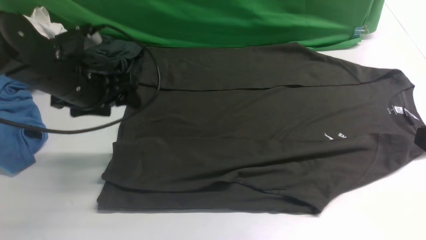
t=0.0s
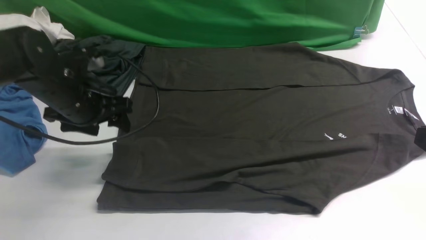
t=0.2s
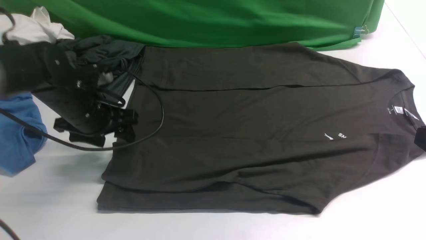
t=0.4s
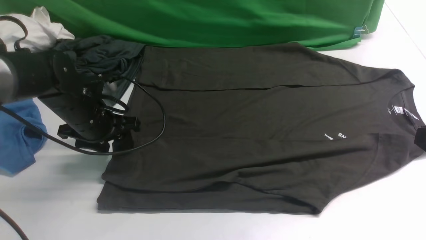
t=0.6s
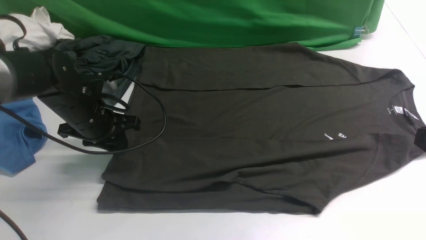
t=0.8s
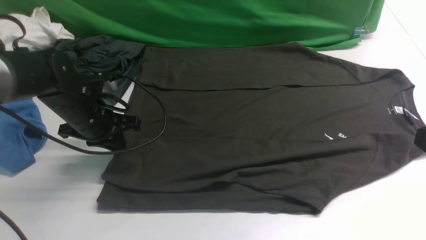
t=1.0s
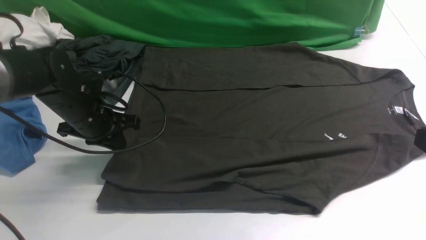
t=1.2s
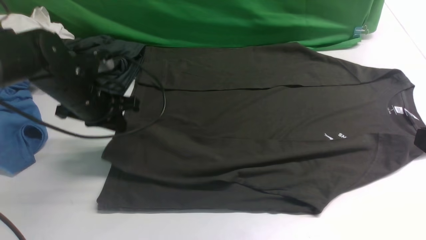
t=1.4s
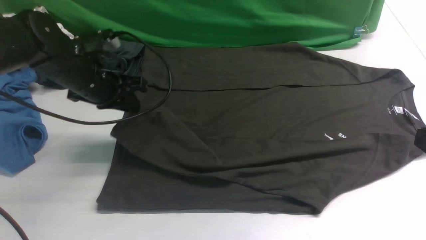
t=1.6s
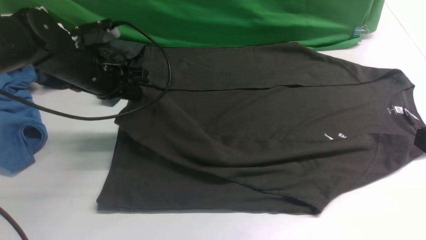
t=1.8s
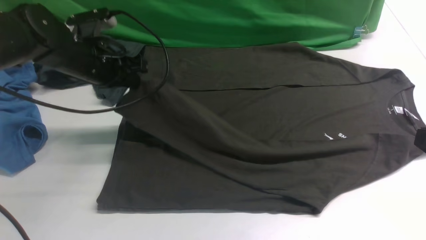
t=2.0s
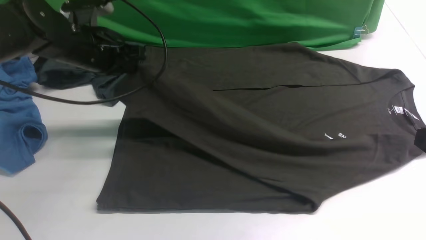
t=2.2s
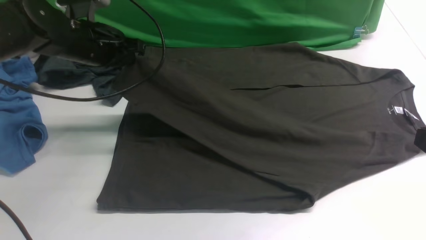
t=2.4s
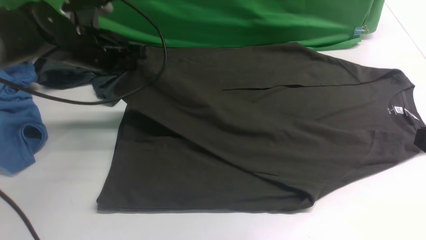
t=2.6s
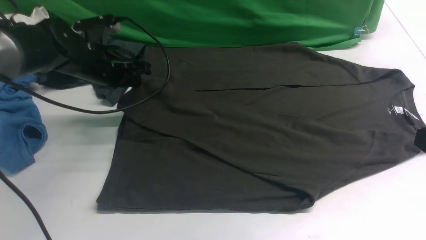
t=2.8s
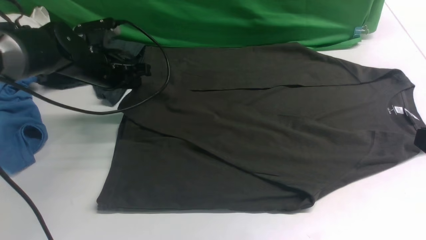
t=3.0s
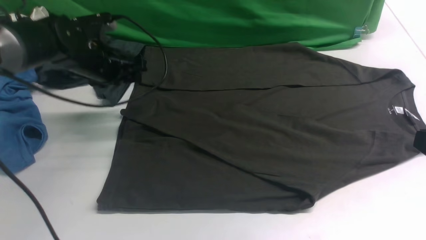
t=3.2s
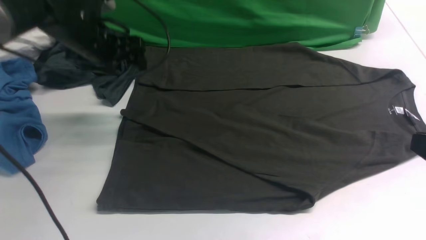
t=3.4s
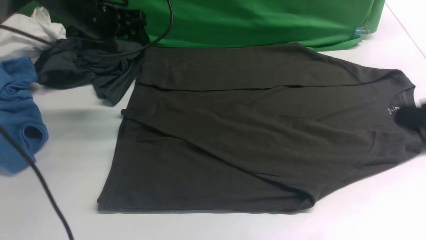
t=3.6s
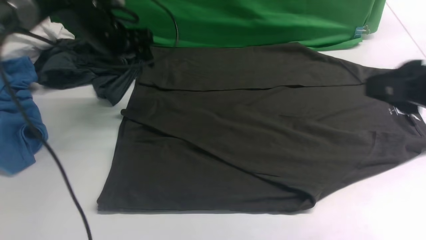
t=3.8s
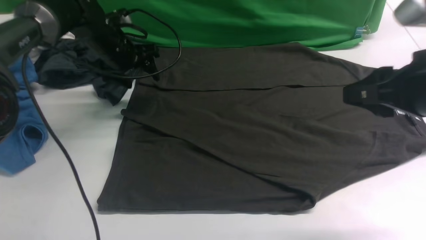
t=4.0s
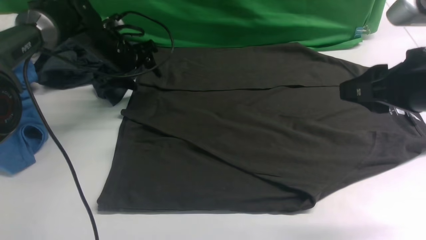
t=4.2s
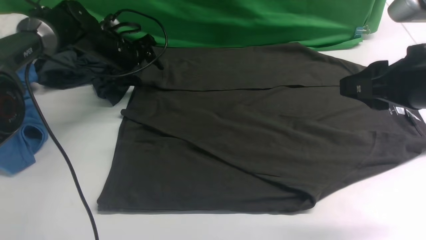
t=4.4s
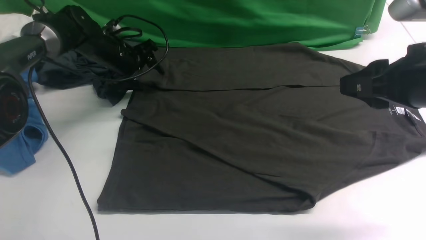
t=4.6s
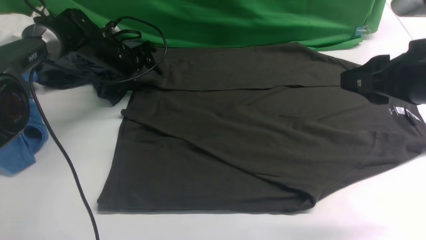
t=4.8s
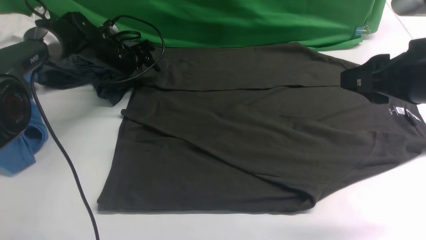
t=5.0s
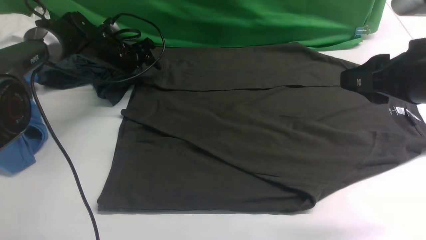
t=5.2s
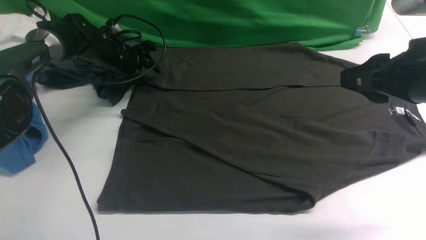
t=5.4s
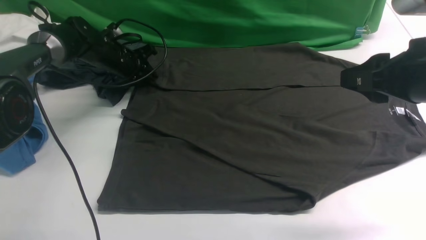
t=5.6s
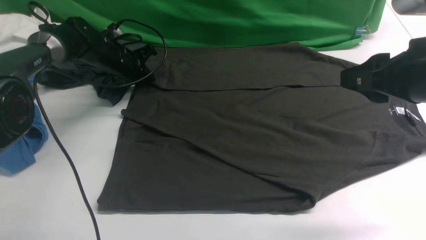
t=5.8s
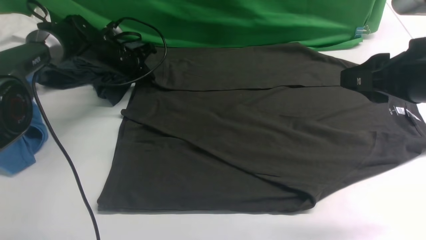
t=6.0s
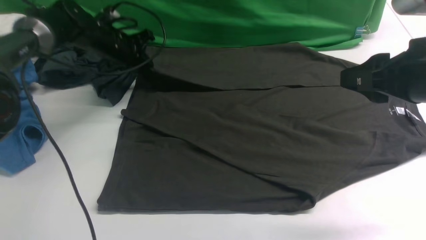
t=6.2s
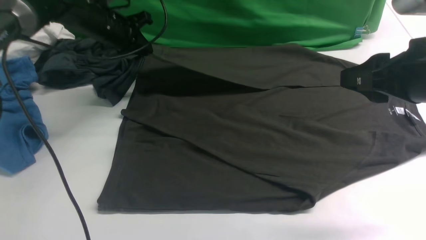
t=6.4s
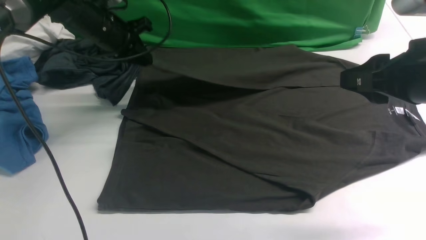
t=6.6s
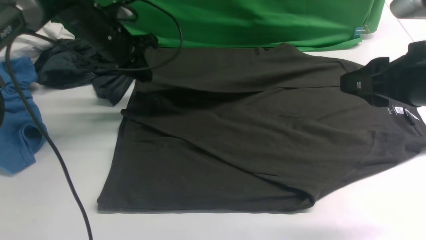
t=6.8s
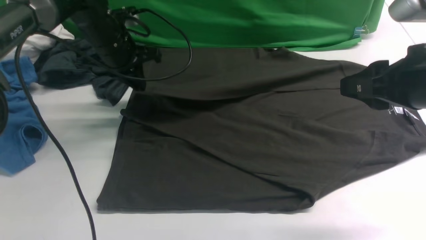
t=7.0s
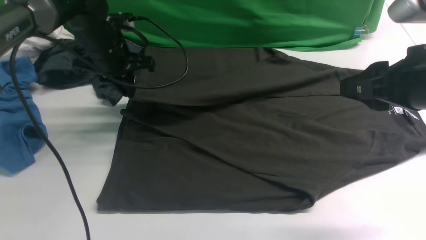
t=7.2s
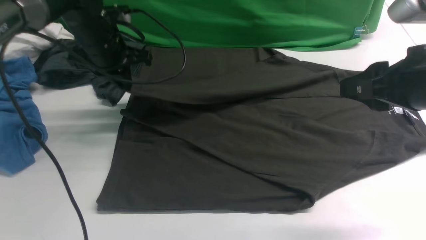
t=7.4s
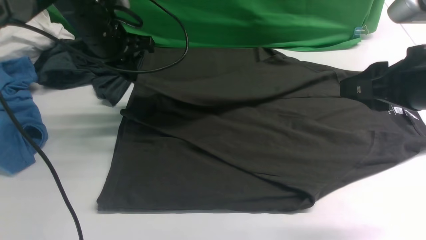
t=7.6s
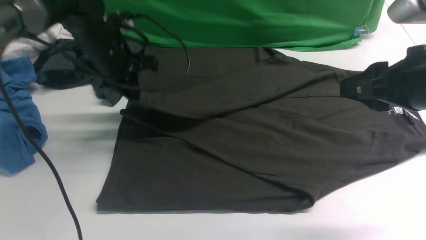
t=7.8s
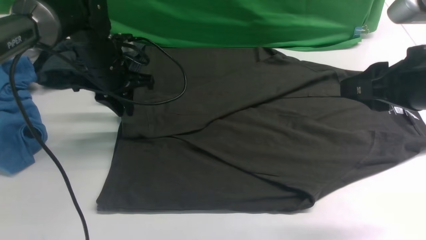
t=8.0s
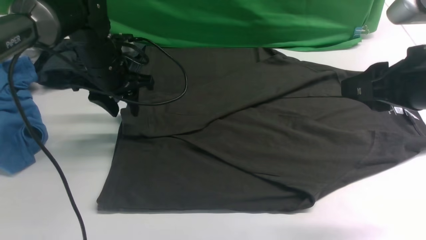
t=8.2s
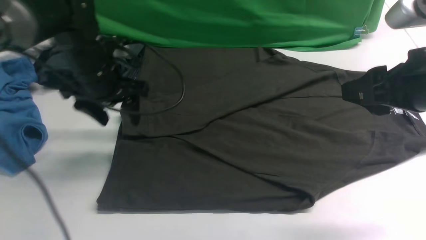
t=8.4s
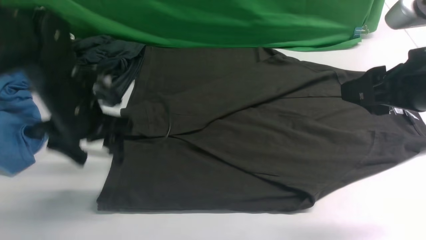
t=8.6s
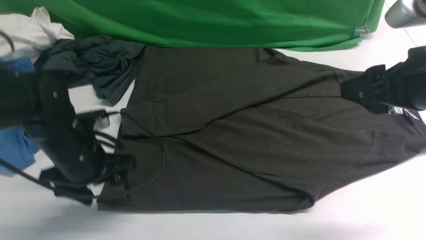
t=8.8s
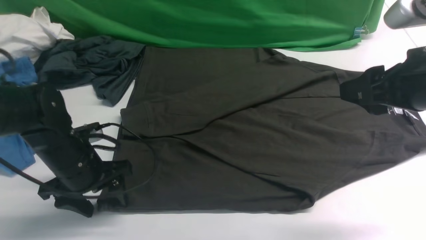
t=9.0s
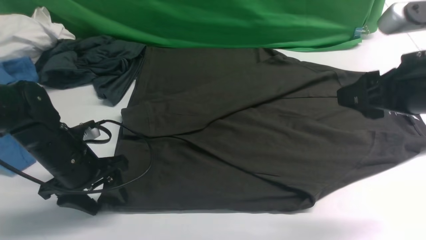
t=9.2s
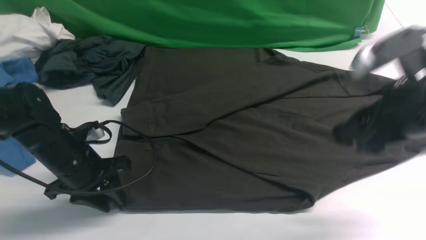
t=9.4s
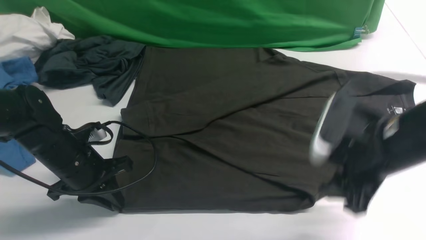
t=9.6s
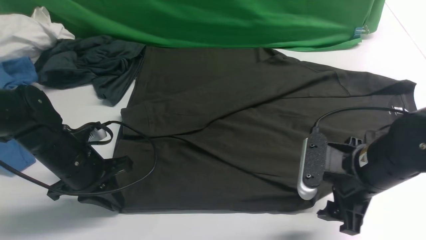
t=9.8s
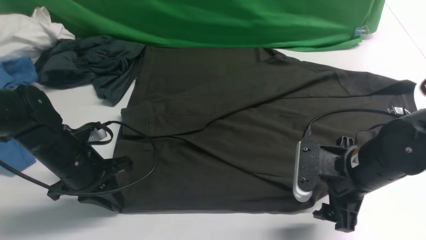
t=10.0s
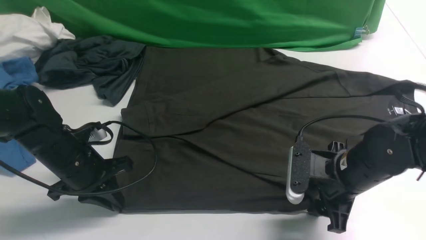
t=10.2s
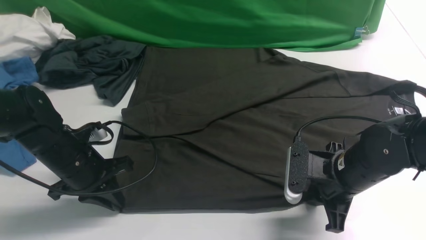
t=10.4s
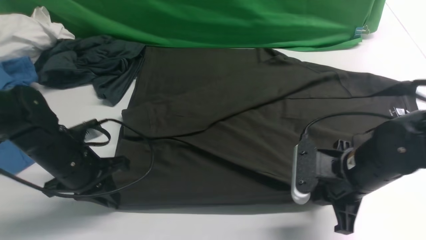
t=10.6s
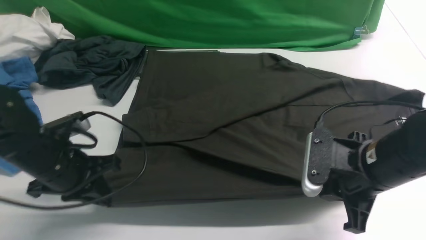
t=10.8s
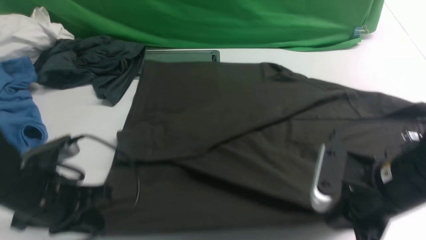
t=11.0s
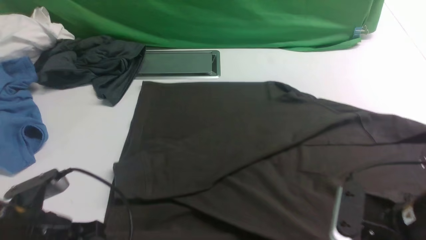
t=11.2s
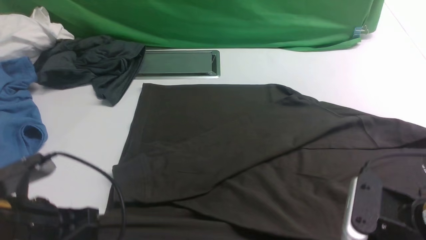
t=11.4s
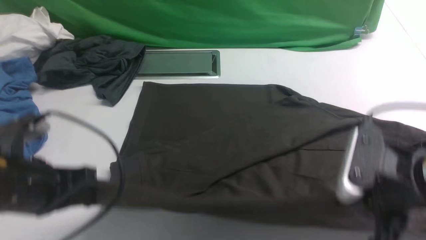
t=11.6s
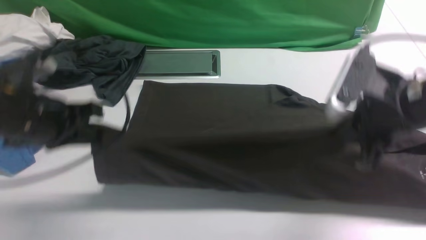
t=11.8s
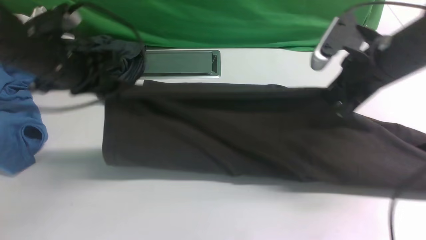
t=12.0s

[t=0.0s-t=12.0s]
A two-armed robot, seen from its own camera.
Step, t=0.0s to t=1.2s: use the left arm to clamp the cuff closest to it.
Step, t=1.4s to t=3.0s: use the left arm to drag and place the cuff at the centered position on the left edge of the fabric.
Step, t=3.2s to t=6.0s: use the left arm to clamp the cuff farthest from it.
Step, t=6.2s to t=8.2s: use the left arm to drag and drop the cuff onto the cuff closest to the left arm.
Step, t=8.6s to t=10.6s: use both arms simultaneously to clamp the lower edge of the clothing fabric.
t=0.0s to t=1.6s: The left gripper closes up.
t=1.6s to t=3.0s: The left gripper goes roughly 5 cm forward.
t=3.0s to t=4.4s: The right gripper heads forward and to the left, covering approximately 10 cm. The left gripper shifts approximately 10 cm forward, and opens up.
t=4.4s to t=6.0s: The left gripper closes its fingers.
t=6.0s to t=7.6s: The left gripper shifts roughly 15 cm upward and backward.
t=7.6s to t=9.0s: The left gripper shifts some 20 cm backward and downward, and opens its fingers.
t=9.0s to t=10.4s: The right gripper travels downward by about 15 cm, and closes its fingers. Meanwhile the left gripper closes.
t=10.4s to t=12.0s: Both grippers travel together upward and forward, some 15 cm.

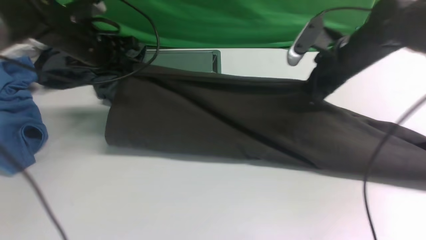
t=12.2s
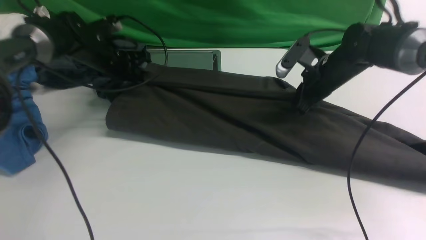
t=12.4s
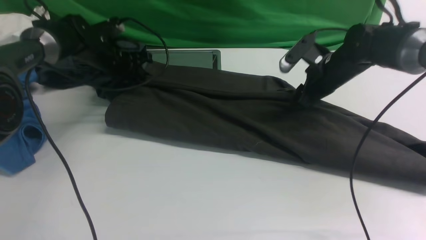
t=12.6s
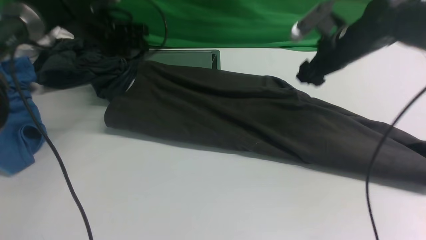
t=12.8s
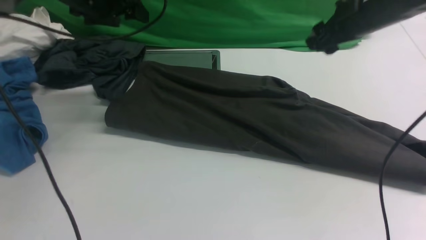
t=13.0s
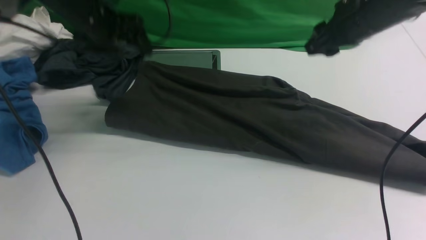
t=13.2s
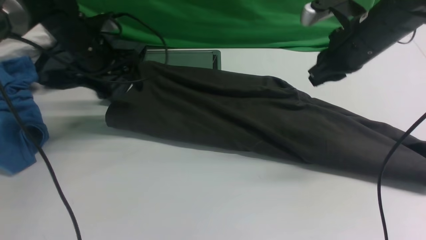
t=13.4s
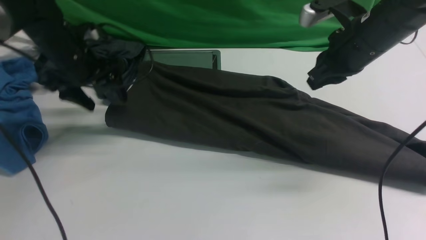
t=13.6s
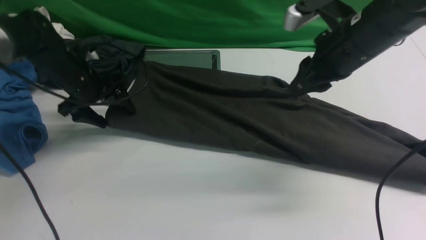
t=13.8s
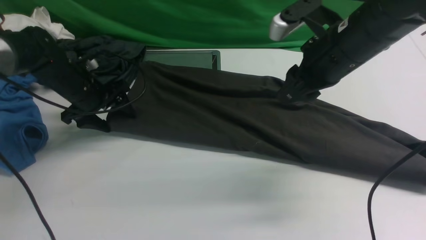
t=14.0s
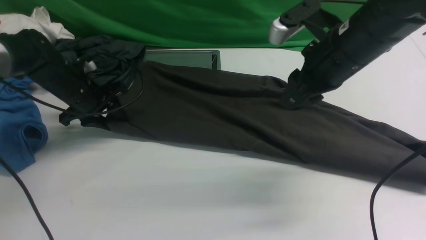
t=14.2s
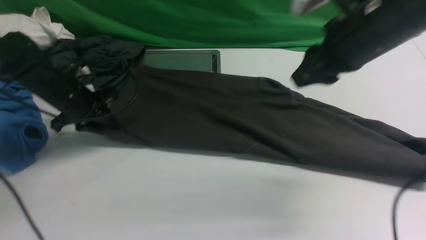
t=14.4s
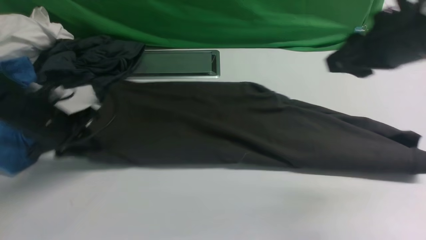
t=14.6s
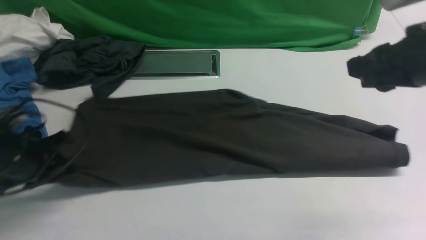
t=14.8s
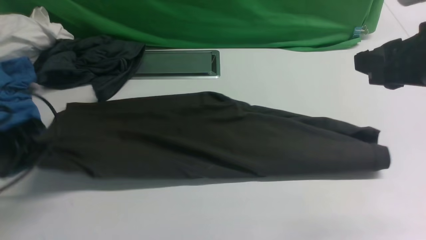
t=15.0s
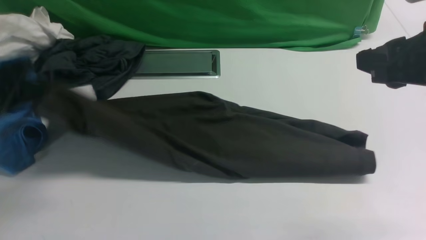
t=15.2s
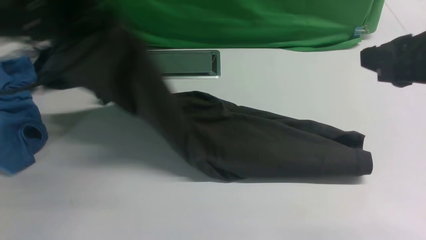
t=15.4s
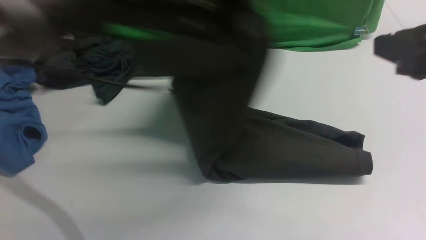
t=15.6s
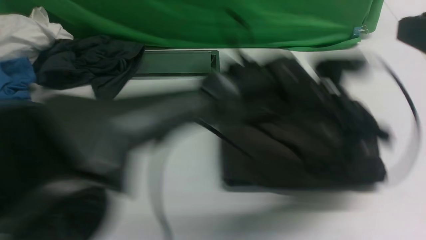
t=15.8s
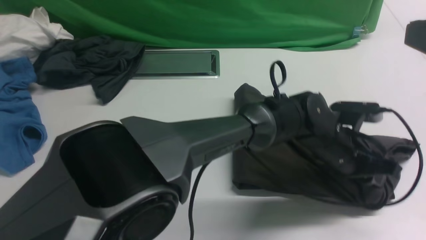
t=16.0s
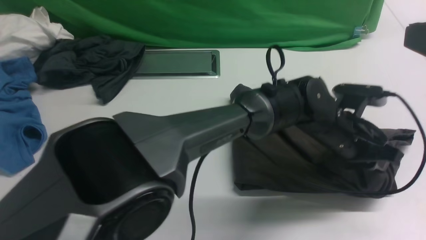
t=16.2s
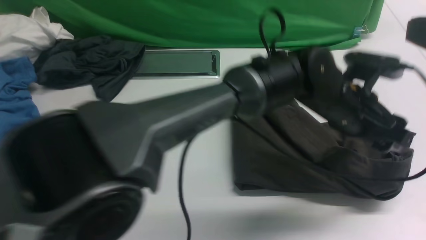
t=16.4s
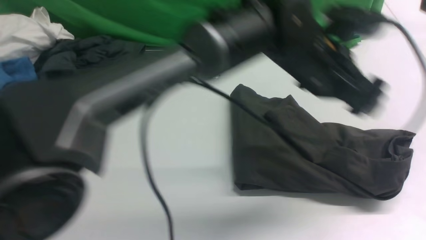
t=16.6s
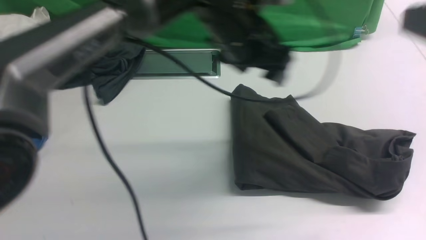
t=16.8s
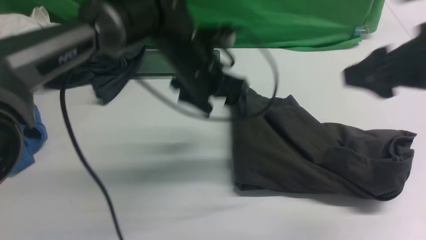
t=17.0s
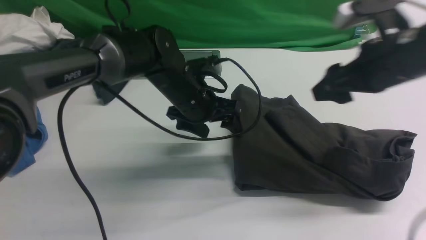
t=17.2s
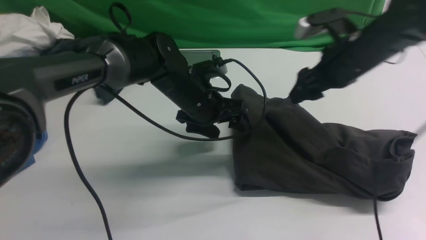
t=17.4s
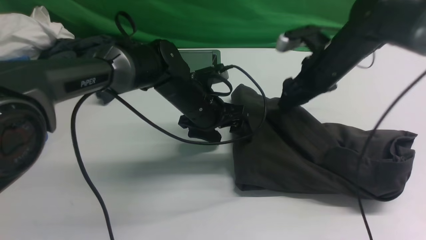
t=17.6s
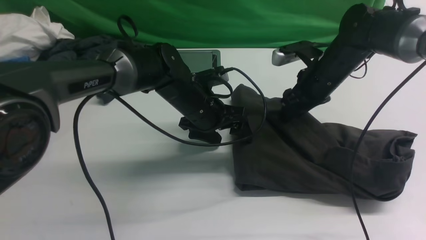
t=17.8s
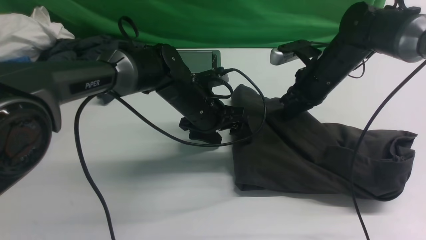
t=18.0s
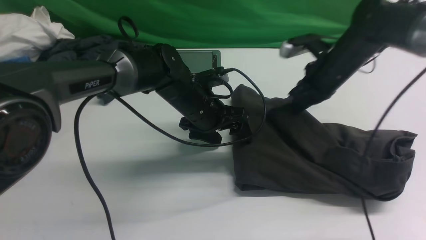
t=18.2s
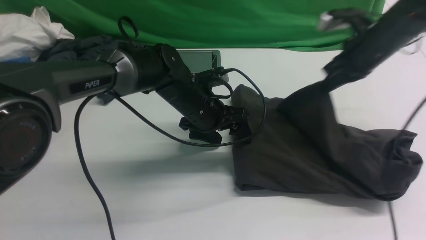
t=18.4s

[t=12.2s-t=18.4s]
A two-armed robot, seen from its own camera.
Step, t=13.4s to t=14.8s: Hold the left edge of the fabric with your left arm.
Step, t=15.2s to t=16.4s: Drag the left edge of the fabric to the left with your left arm and fold it to the right edge.
t=12.2s to t=13.8s: The right gripper travels upward and backward by roughly 10 cm, and opens, then closes again; the left gripper swings up and down, approximately 10 cm each way, with 2 reversals, and opens.
t=13.8s to t=15.4s: The right gripper heads backward, to the right and upward, covering roughly 15 cm. Meanwhile the left gripper heads upward, to the right and backward, covering roughly 20 cm, and closes up.
t=15.4s to t=16.8s: The left gripper moves to the right, roughly 20 cm, and opens its fingers.
t=16.8s to t=18.4s: The right gripper moves forward and downward, roughly 25 cm, and closes its fingers, while the left gripper heads downward and to the left, covering roughly 15 cm.
